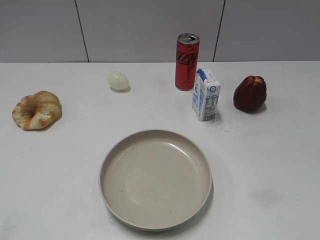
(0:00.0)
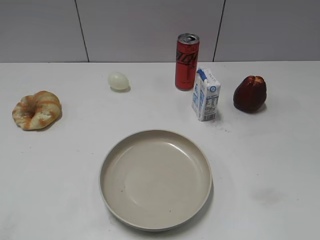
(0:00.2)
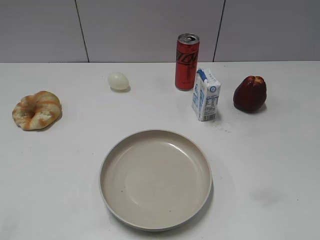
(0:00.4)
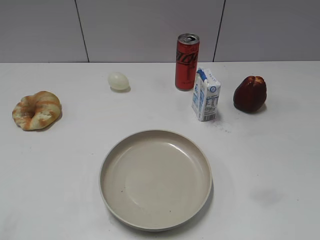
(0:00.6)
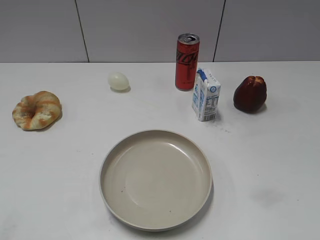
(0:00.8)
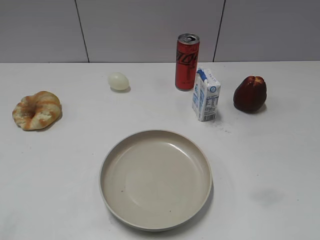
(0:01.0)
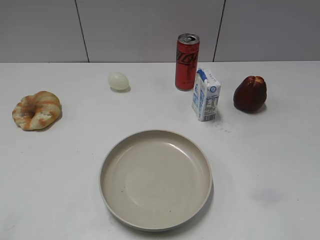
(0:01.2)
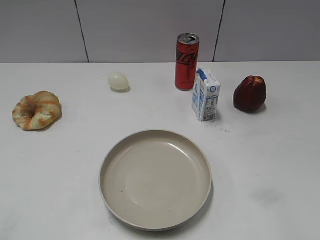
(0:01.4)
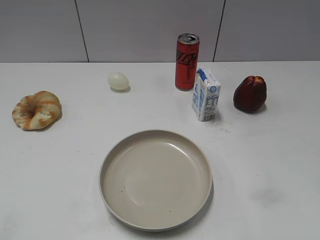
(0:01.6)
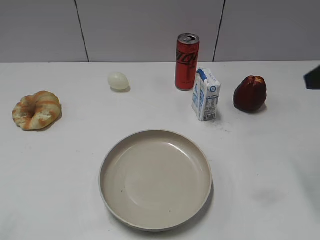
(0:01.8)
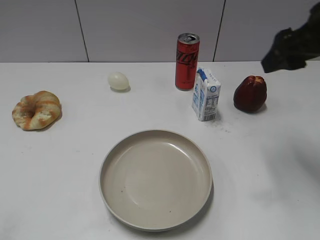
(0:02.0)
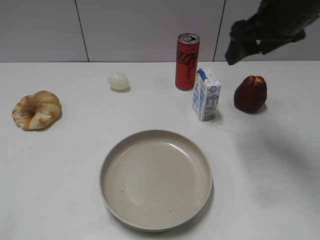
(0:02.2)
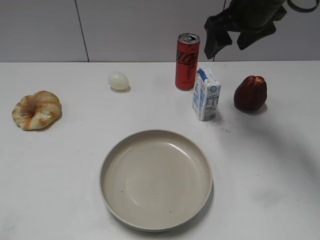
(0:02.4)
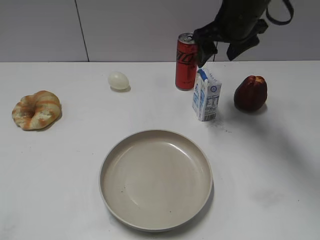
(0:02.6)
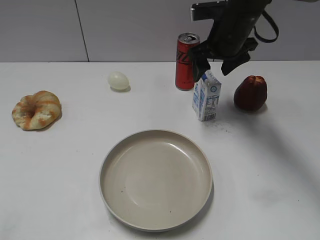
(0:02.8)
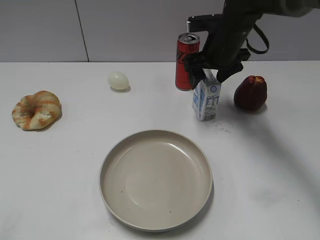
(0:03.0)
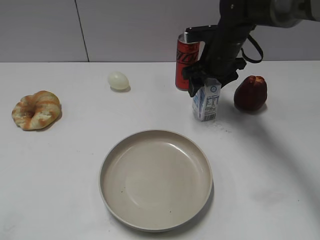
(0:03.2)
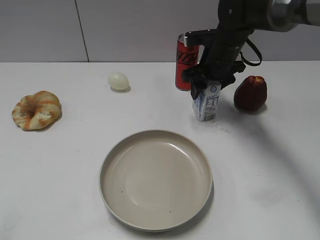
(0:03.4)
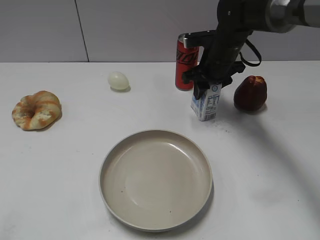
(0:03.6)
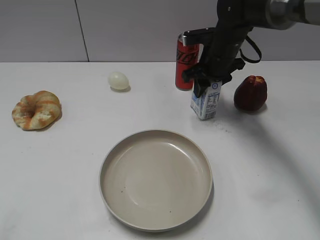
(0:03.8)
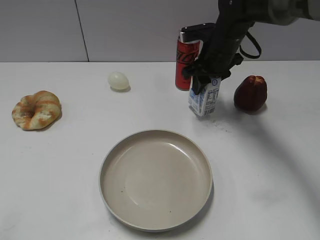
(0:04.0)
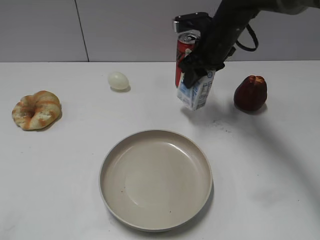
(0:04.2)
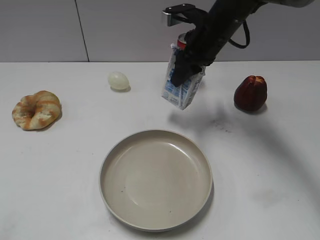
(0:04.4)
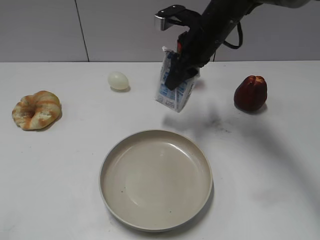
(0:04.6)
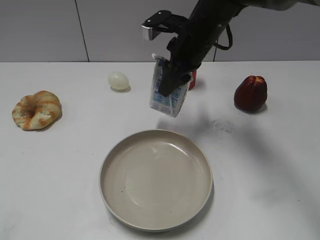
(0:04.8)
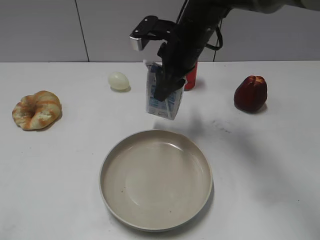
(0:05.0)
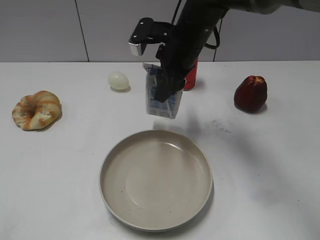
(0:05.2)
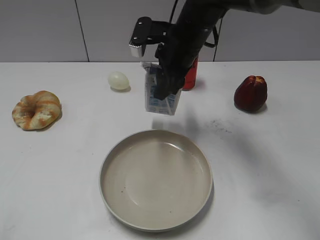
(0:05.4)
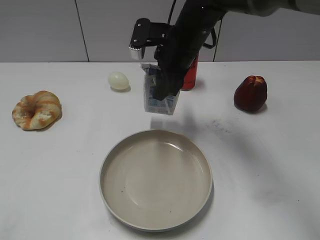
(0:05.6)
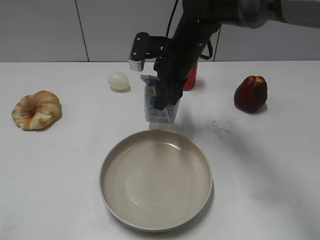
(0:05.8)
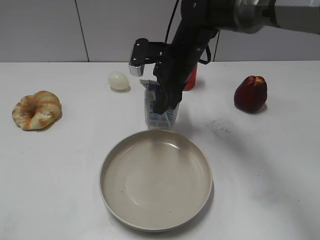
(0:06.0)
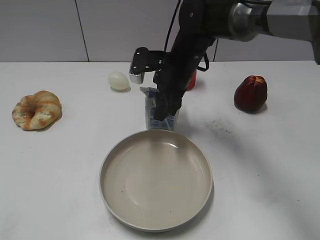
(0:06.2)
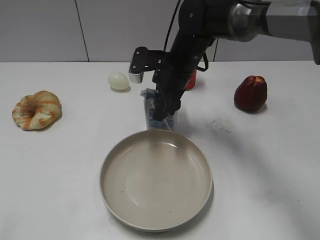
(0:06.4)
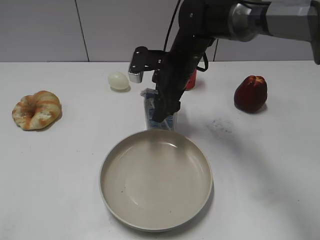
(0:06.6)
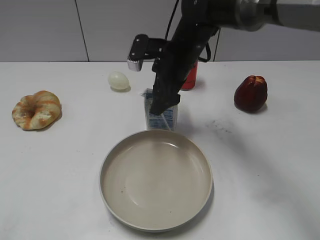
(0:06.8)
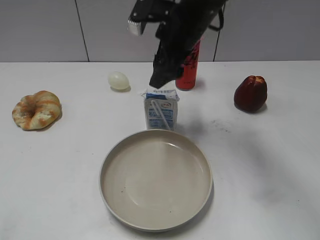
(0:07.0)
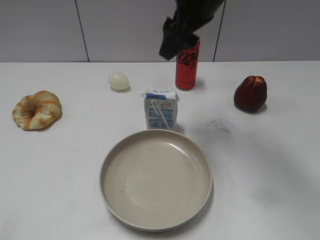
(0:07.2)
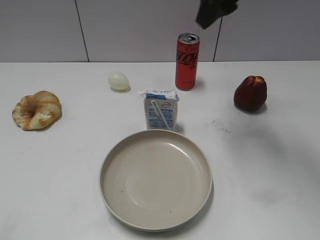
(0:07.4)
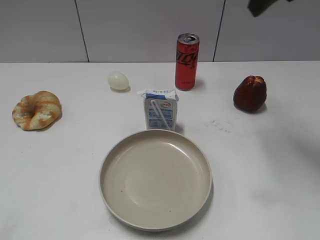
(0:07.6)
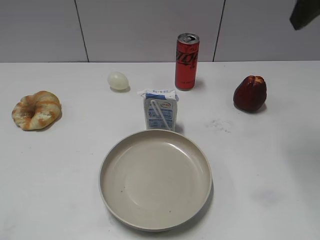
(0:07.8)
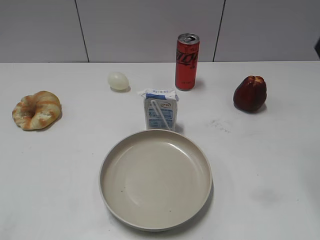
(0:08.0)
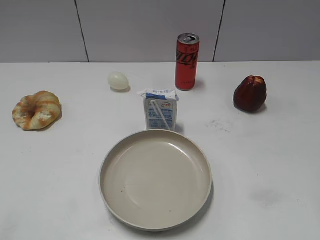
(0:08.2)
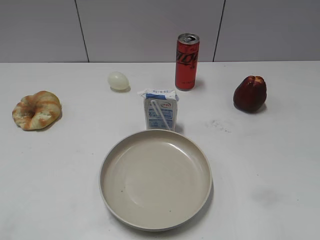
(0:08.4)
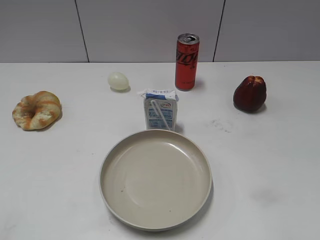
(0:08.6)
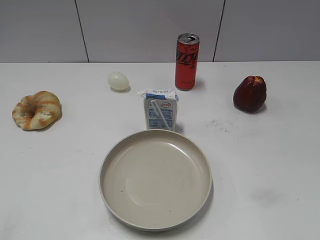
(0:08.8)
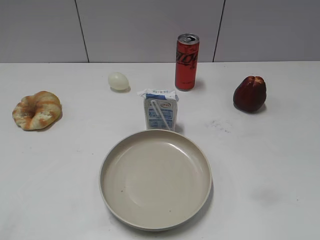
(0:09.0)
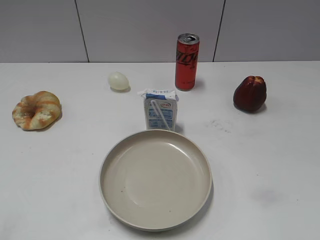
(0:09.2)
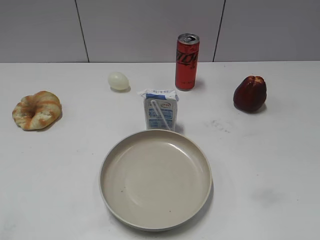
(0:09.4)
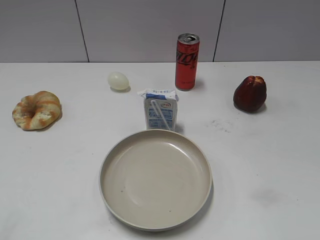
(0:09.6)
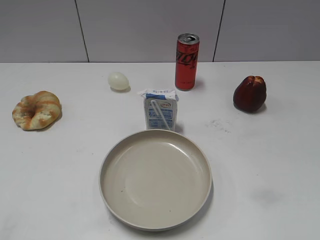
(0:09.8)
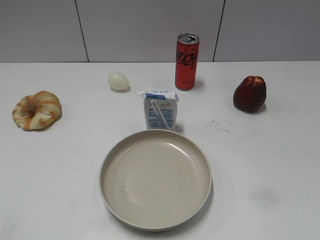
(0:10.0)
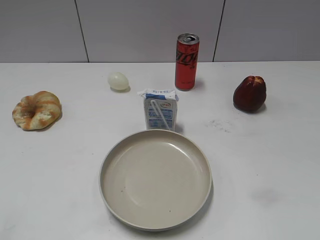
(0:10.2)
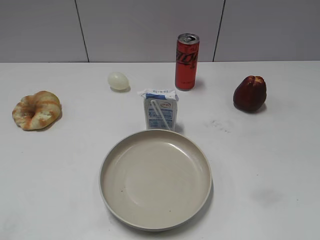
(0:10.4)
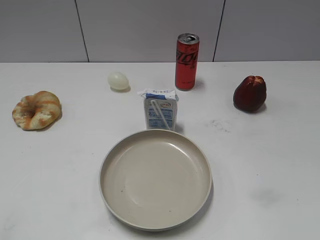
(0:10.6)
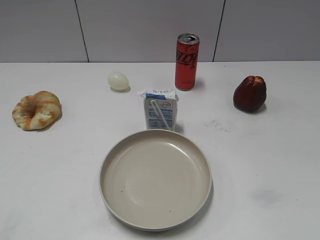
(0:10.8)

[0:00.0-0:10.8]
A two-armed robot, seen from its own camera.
Step, 0:00.8 to 0:03.8: Grasp the milk with right gripper.
Step, 0:04.0 to 0:06.8: Place the milk on the table with right gripper.
0:01.6 to 0:03.0: The right gripper travels forward, to the left and downward by some 35 cm.
0:03.0 to 0:04.6: The right gripper shifts by some 5 cm, and closes up.
0:04.6 to 0:06.2: The right gripper heads downward, covering approximately 5 cm.
0:06.2 to 0:07.8: The right gripper travels upward, to the right and backward by about 30 cm, and opens its fingers.
0:07.8 to 0:09.2: The right gripper heads backward and downward, covering about 30 cm.
